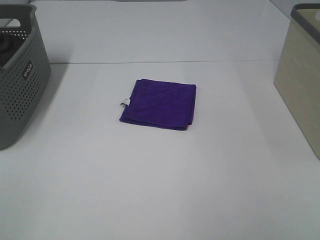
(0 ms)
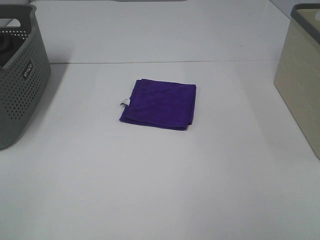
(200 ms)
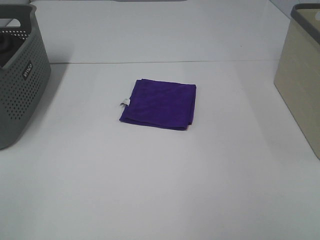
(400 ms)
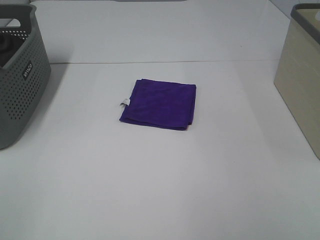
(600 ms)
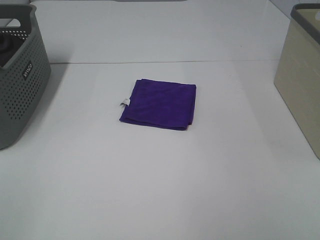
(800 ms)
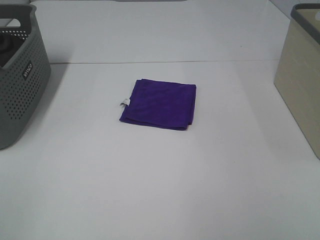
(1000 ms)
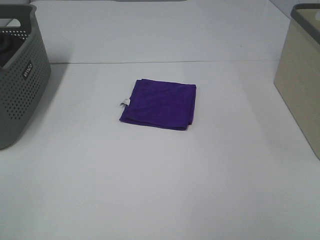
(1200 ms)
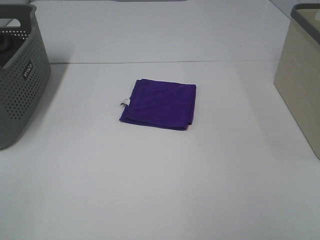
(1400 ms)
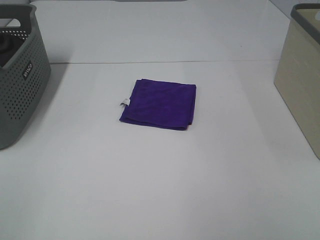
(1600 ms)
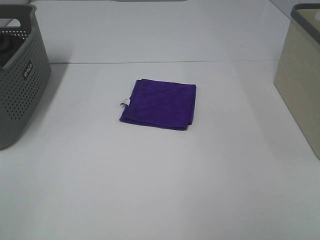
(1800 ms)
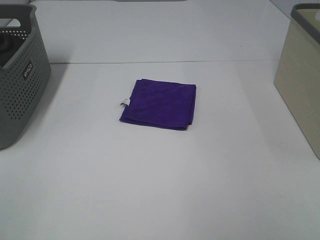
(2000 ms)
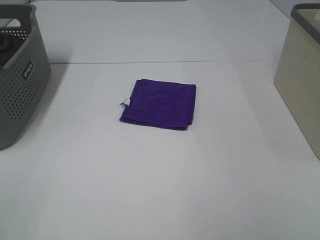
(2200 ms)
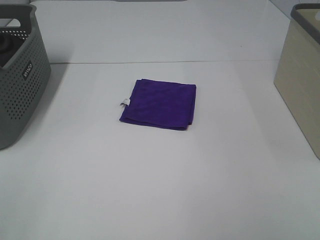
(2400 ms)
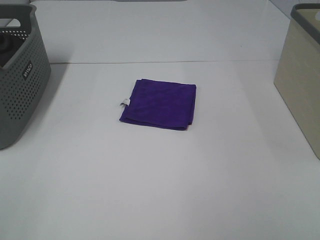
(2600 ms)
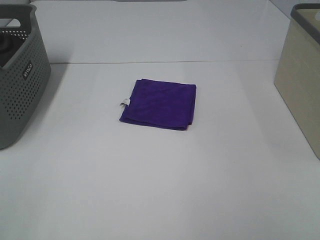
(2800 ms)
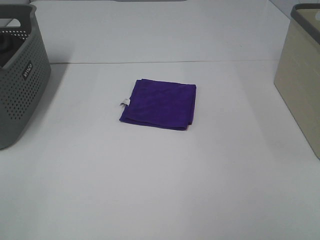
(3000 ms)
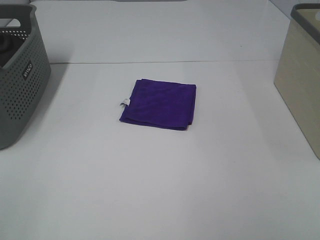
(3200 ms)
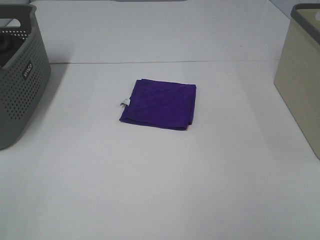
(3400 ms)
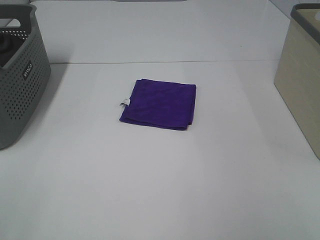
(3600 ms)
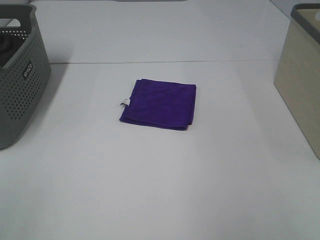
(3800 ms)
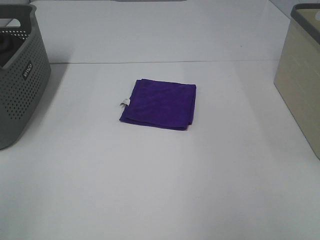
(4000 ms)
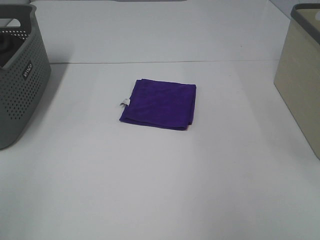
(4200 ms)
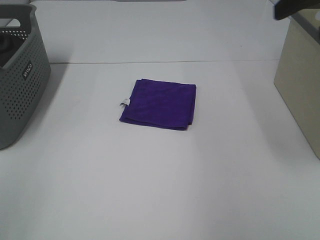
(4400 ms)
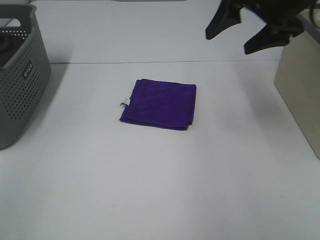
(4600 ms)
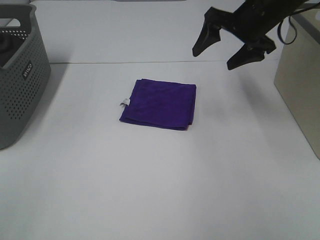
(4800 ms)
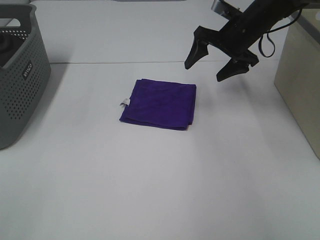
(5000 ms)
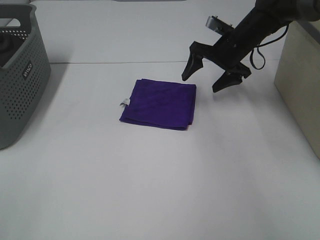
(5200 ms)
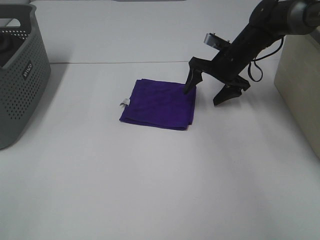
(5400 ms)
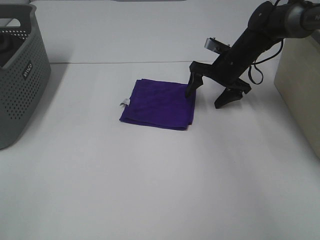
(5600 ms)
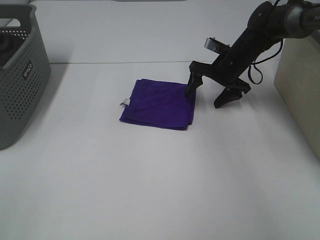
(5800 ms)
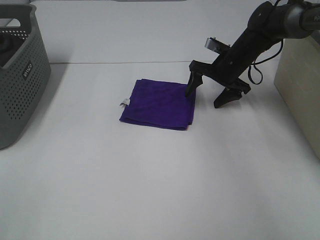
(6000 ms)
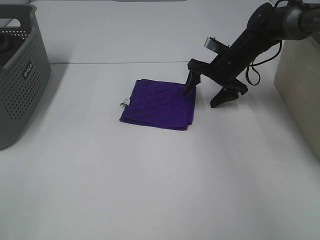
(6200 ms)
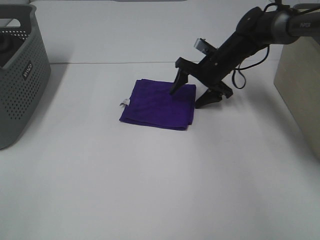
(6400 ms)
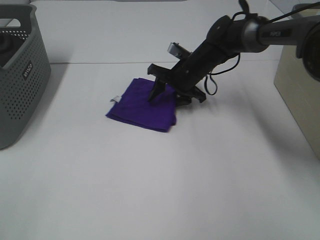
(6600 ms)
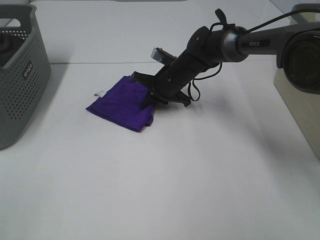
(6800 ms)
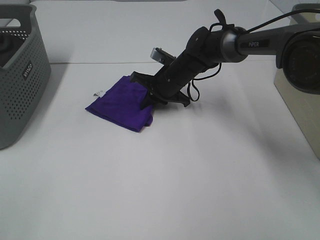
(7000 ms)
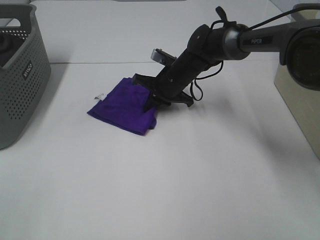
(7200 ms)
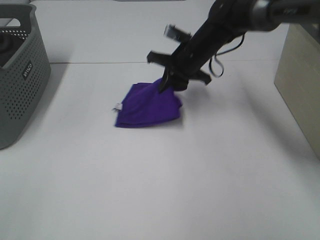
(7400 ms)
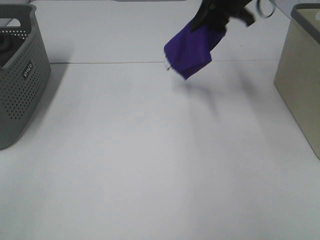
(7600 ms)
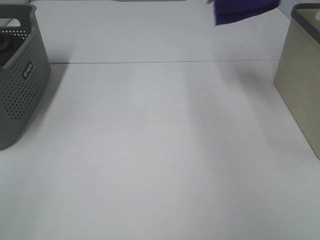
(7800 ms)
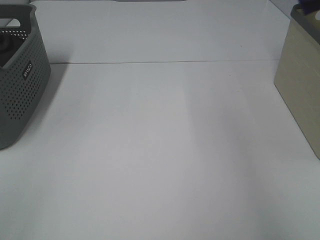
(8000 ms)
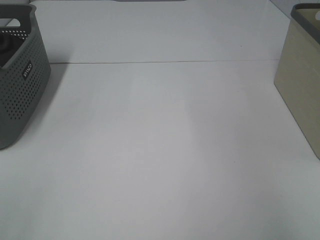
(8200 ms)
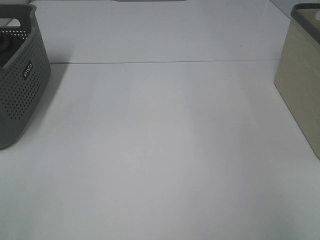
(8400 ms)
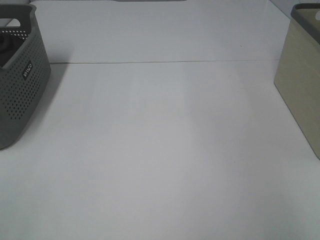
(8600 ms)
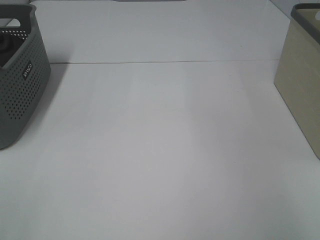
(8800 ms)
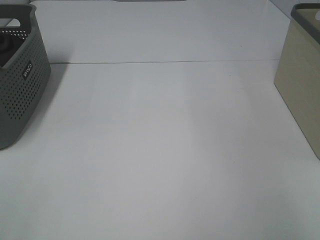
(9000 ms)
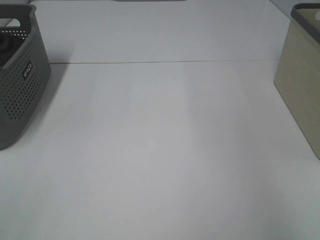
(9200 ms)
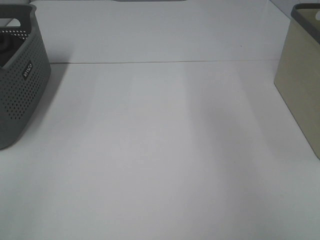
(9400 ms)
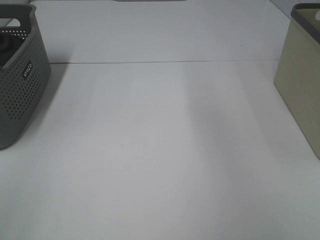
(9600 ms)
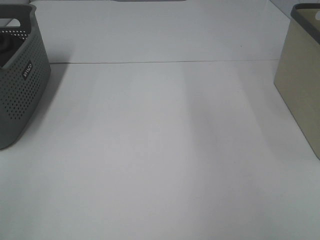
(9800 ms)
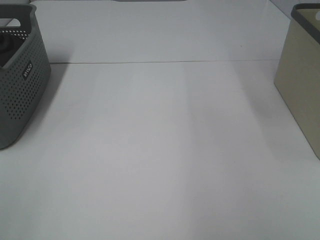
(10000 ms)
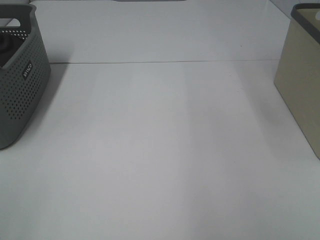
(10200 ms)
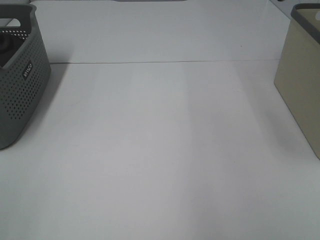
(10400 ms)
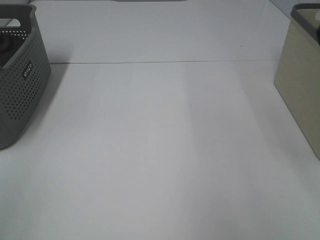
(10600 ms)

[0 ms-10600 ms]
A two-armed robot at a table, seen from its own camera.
Step, 0 ms to 6800 ms: Right hand: grab the folded purple towel.
Step, 7000 ms to 8800 ms: Right hand: place the purple towel in right basket.
0 ms to 3000 ms: Neither gripper changes place.
3000 ms to 4600 ms: The right gripper heads forward, covering roughly 35 cm.
4600 ms to 6000 ms: The right gripper is displaced downward and forward by approximately 20 cm.
6000 ms to 7600 ms: The right gripper shifts approximately 20 cm upward, and closes.
7600 ms to 9000 ms: The right gripper shifts about 25 cm to the right, and opens its fingers.

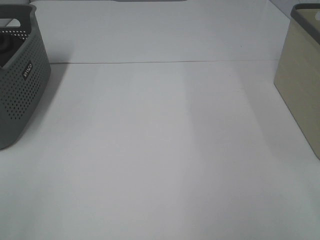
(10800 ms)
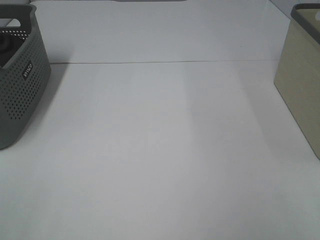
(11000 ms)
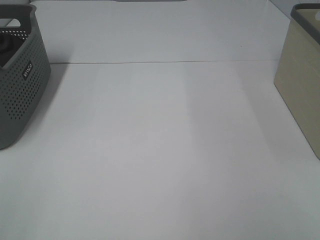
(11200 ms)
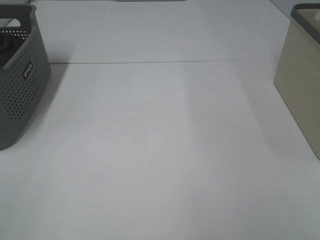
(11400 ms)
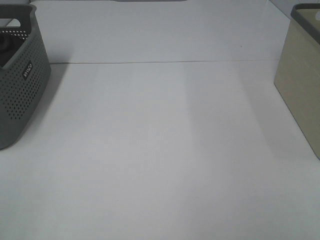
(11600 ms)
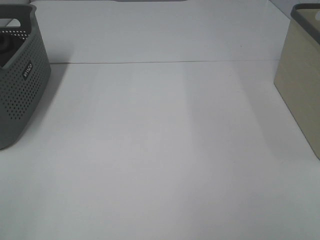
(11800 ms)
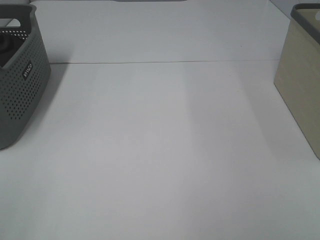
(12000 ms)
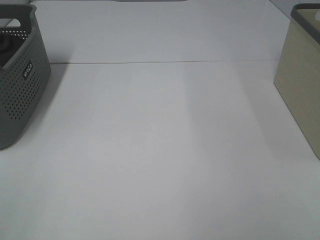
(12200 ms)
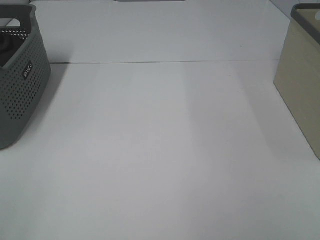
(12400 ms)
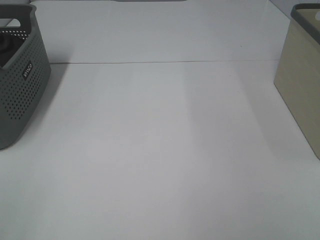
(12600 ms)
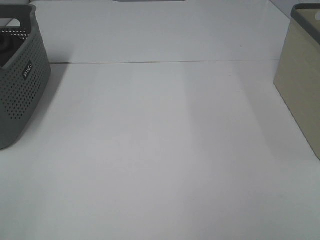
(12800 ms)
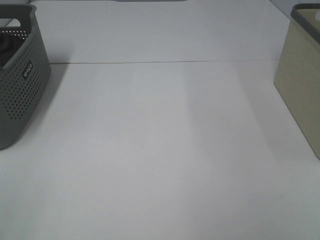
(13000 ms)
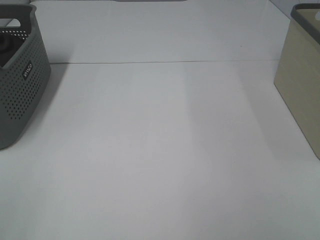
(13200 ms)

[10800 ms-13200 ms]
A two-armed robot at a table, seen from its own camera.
12000 ms to 13200 ms: Both grippers stay put.

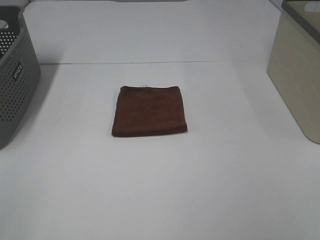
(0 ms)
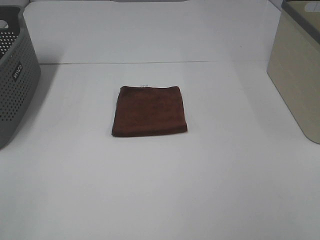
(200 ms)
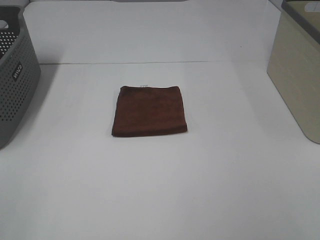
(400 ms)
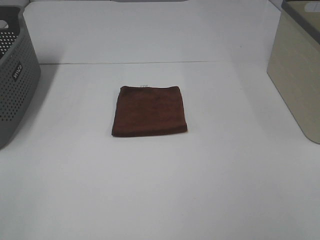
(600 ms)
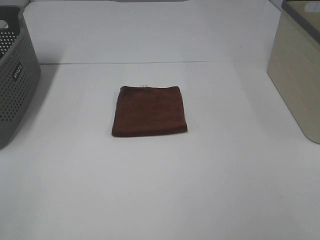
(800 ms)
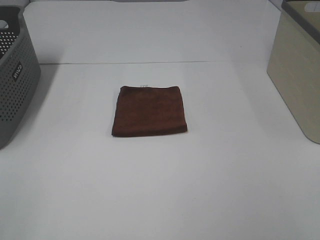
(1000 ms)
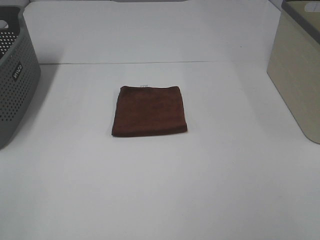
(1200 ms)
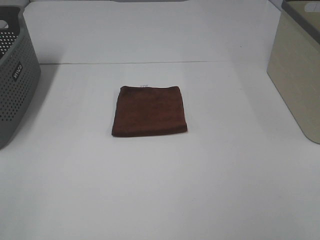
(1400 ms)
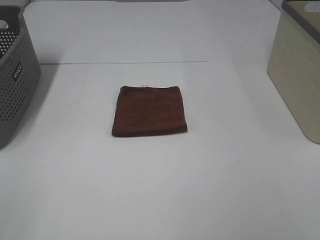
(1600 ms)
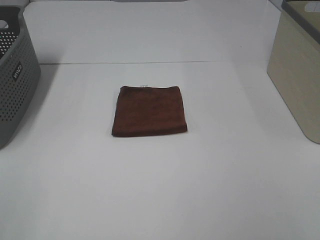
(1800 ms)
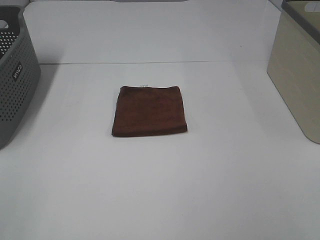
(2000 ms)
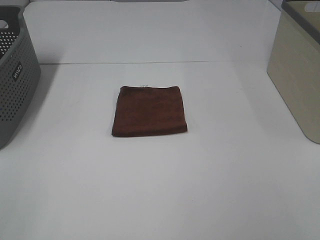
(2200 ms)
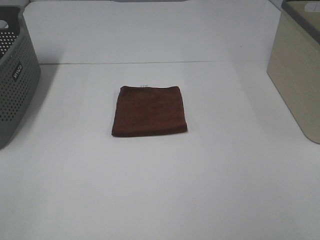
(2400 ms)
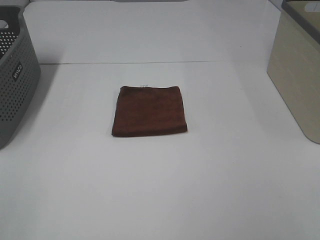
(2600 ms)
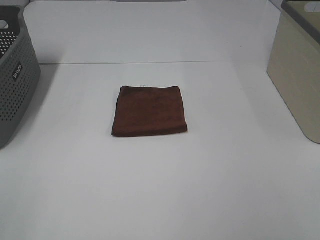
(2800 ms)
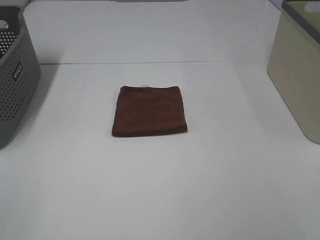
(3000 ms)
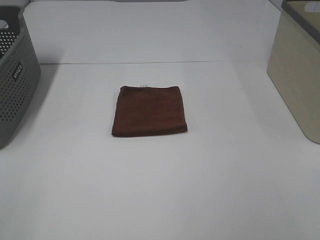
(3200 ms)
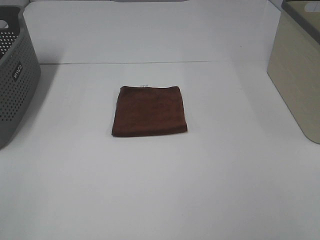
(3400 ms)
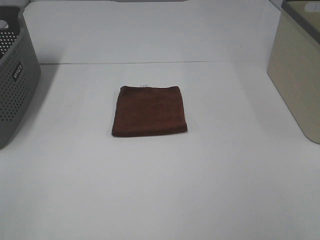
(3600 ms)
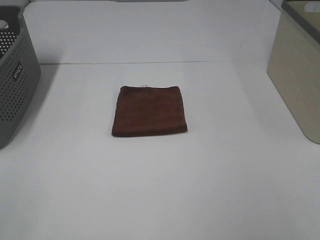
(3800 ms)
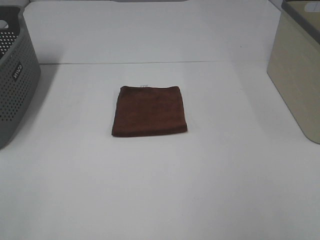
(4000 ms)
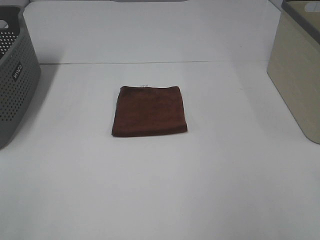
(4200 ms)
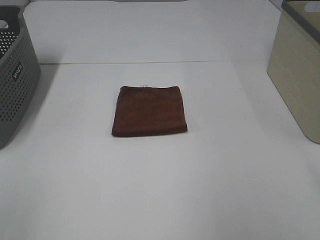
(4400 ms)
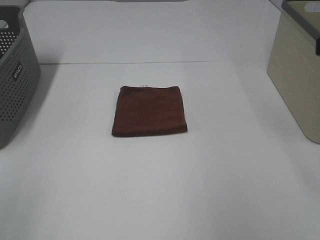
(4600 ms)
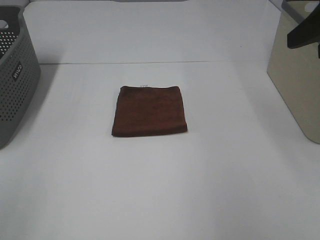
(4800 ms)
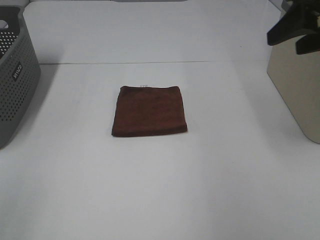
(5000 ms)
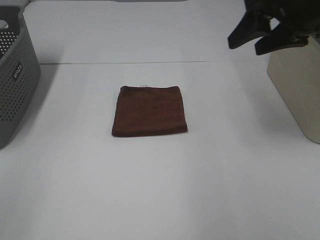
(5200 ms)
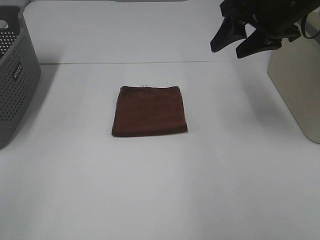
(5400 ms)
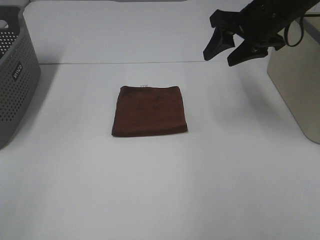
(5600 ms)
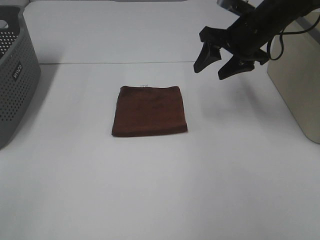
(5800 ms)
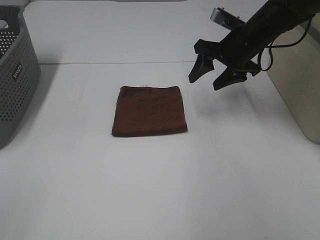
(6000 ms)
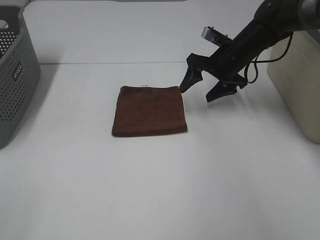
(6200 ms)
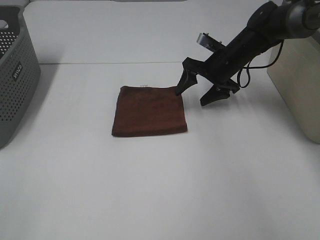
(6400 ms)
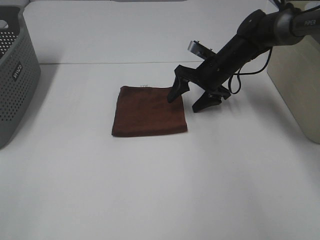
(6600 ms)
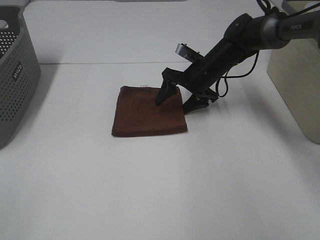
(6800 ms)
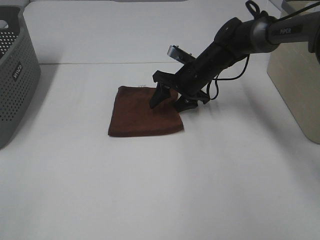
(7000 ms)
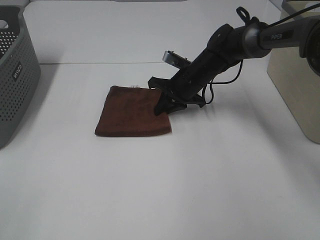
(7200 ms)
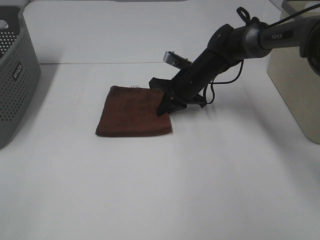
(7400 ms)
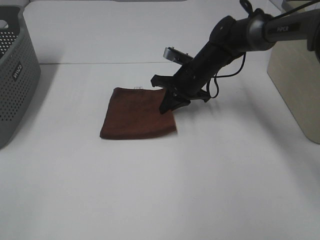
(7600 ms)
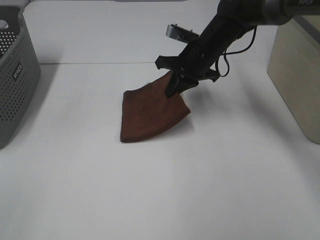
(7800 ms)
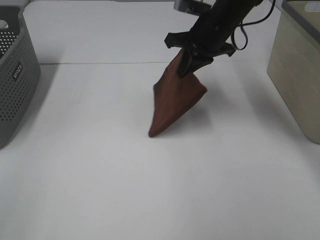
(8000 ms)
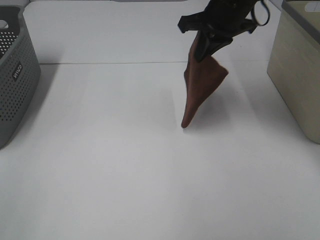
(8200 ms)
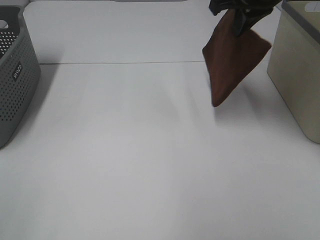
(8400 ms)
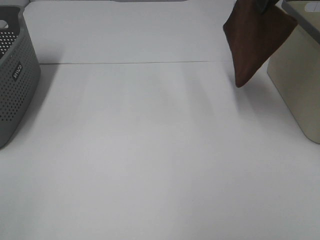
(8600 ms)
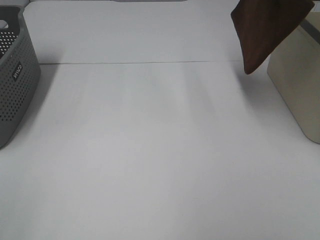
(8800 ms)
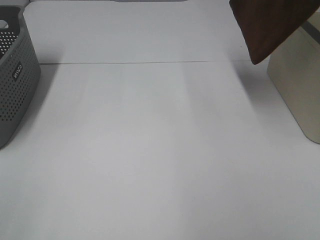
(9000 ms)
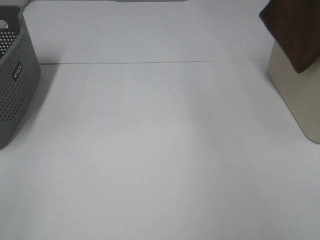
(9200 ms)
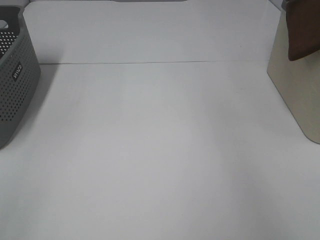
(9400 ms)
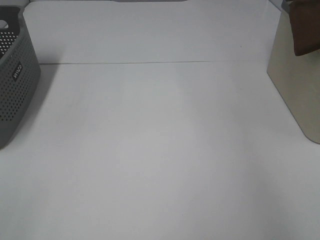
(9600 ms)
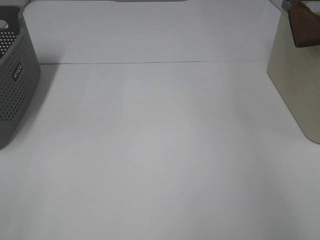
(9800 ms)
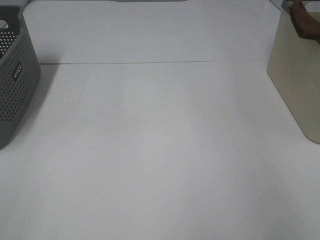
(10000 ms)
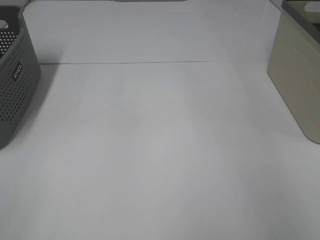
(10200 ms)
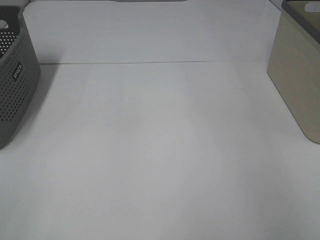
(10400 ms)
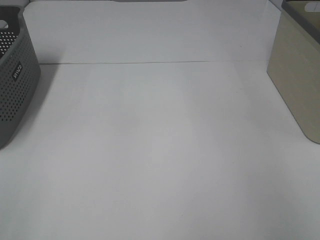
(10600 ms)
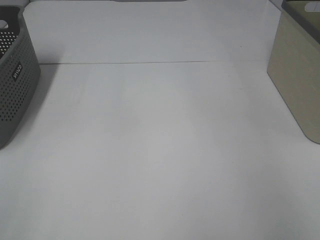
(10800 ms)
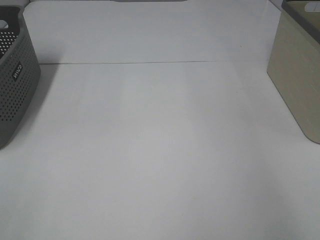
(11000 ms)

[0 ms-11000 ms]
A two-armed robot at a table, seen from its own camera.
Step, 0 ms to 7400 ms: Right hand: grab the folded brown towel.
Step, 7600 ms to 10800 ms: Right hand: place the brown towel in right basket.
0 ms to 3200 ms: Both grippers stay put.
3200 ms to 4800 ms: The right gripper is displaced forward by approximately 25 cm.
4800 ms to 6200 ms: The right gripper moves forward, downward and to the left, roughly 30 cm.
6200 ms to 7800 ms: The right gripper travels to the left by some 5 cm, goes downward and returns, roughly 5 cm each way, and closes up.
7800 ms to 9400 ms: The right gripper is displaced to the right and upward by roughly 35 cm.
9400 ms to 11000 ms: The right gripper is displaced downward by roughly 5 cm, and opens up.
